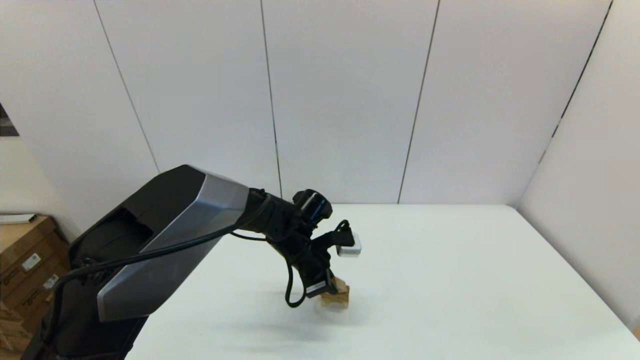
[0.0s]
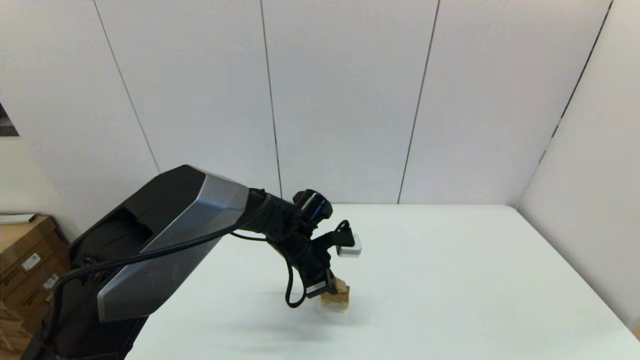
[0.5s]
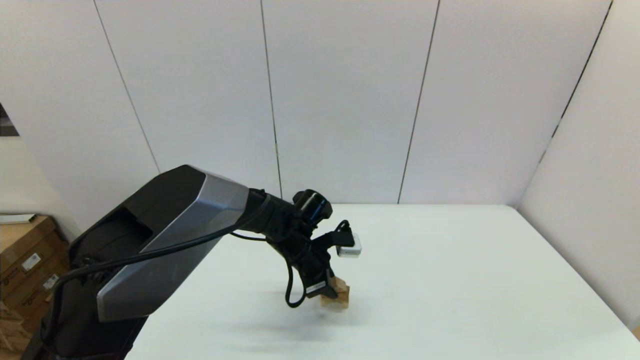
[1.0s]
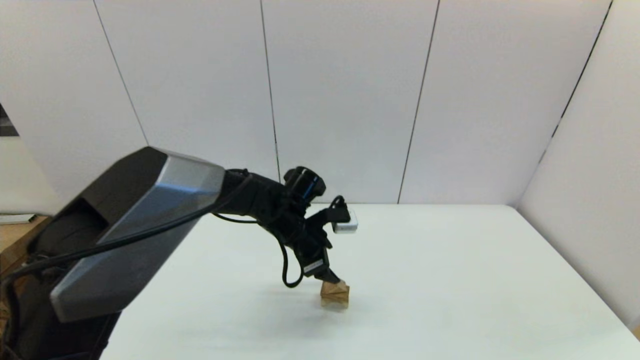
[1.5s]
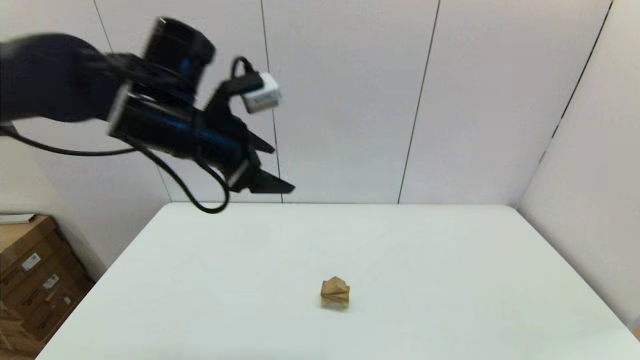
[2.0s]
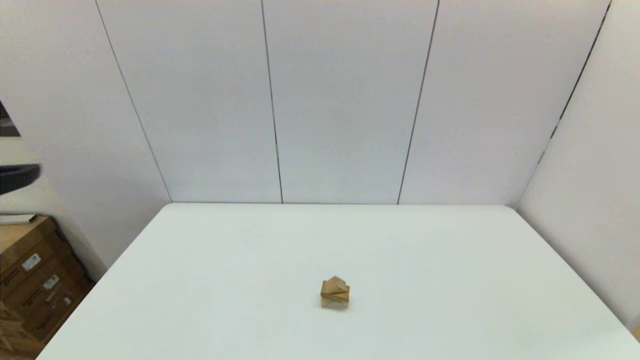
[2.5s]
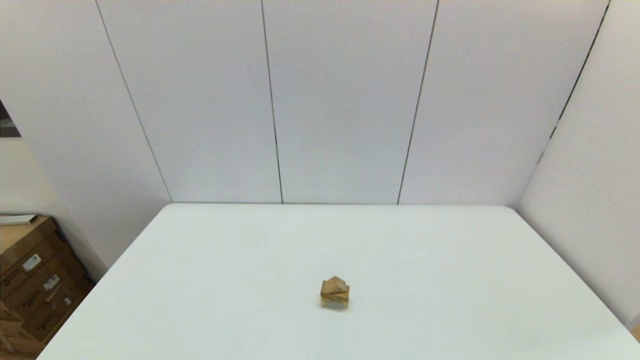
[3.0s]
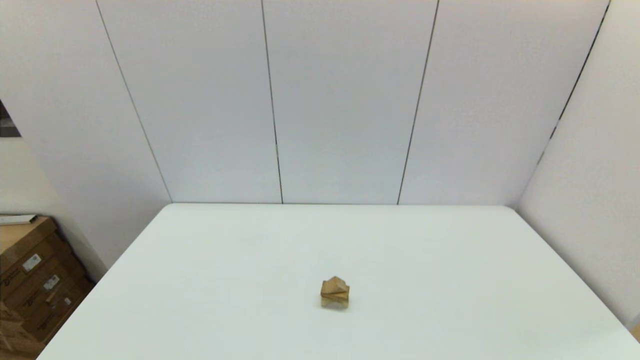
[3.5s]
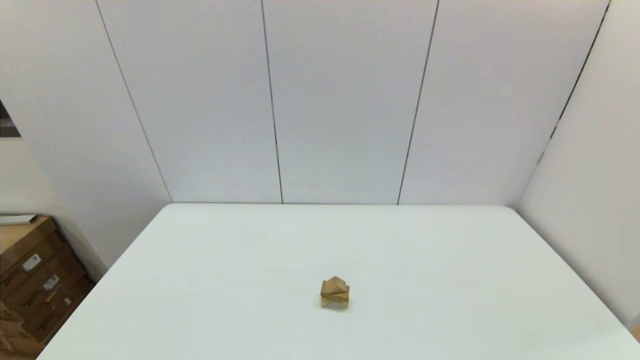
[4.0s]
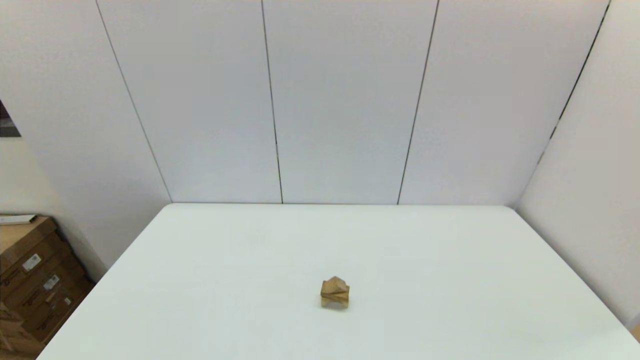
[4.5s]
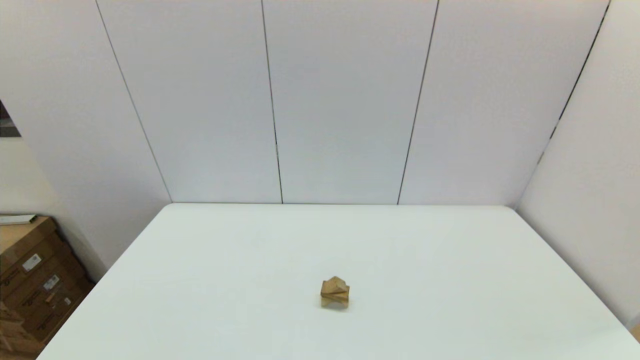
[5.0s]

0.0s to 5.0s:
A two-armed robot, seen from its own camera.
Task of the whole recording: place the arched building blocks in the center of the table, set up the rectangular building blocks, and then set up the triangular building blocks.
0.0s to 2.5s: The left gripper moves upward, backward and to the left, some 50 cm, and opens up.

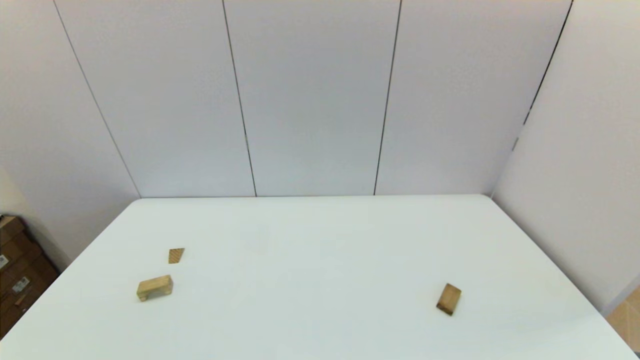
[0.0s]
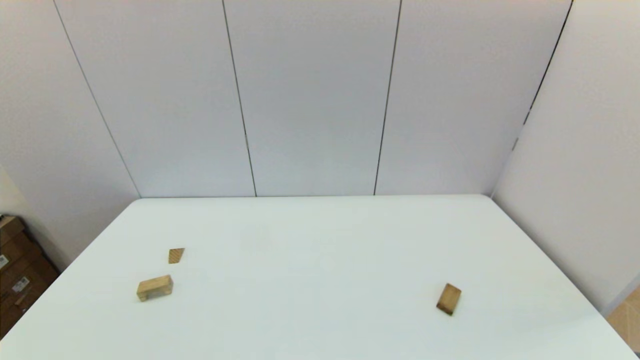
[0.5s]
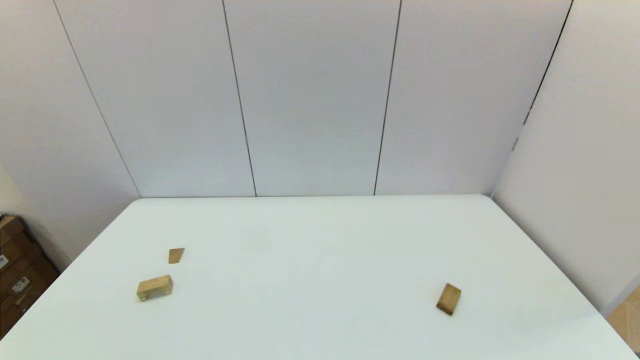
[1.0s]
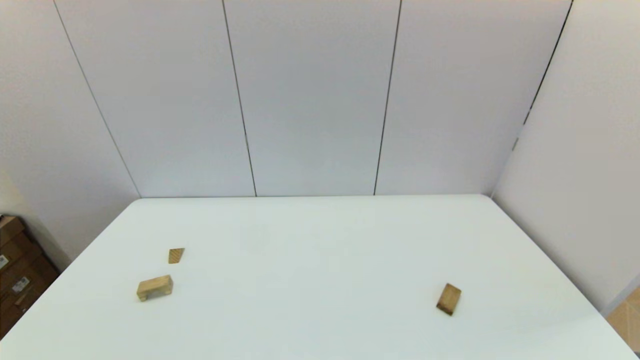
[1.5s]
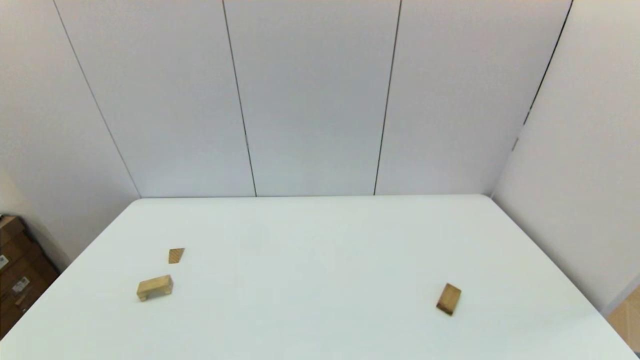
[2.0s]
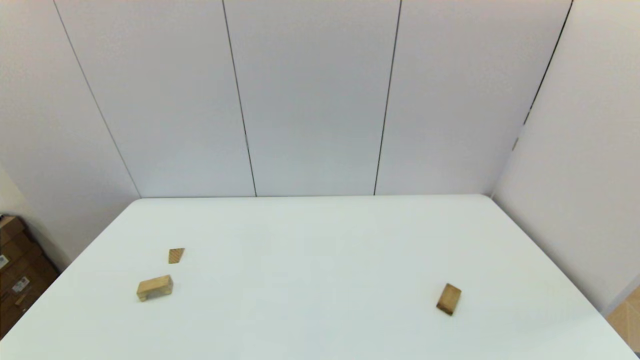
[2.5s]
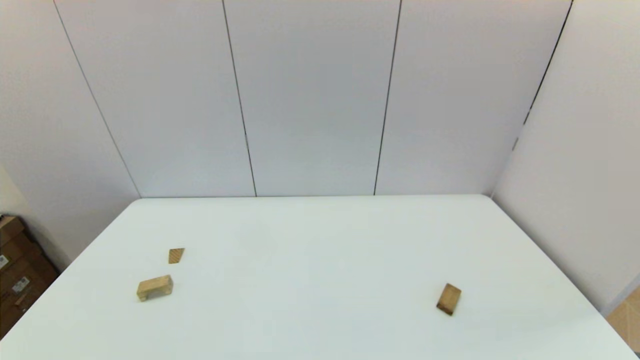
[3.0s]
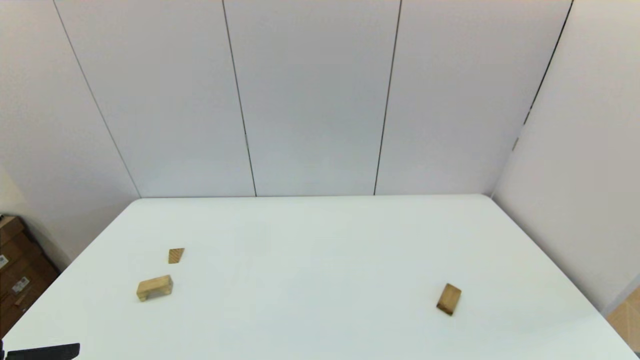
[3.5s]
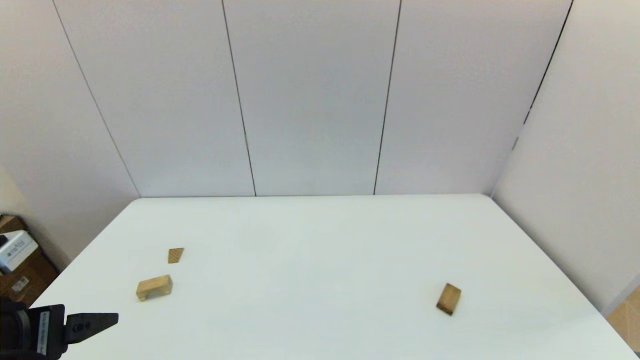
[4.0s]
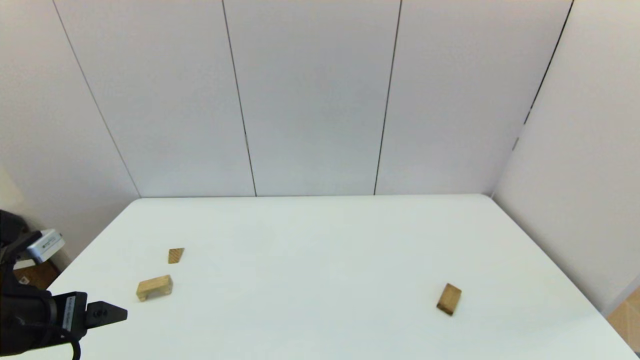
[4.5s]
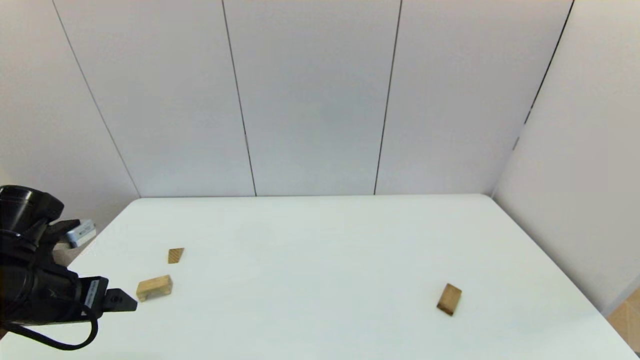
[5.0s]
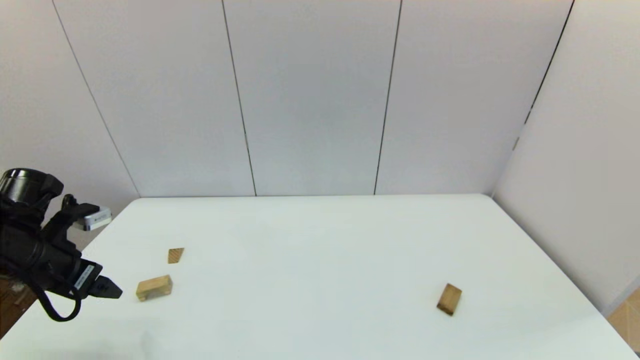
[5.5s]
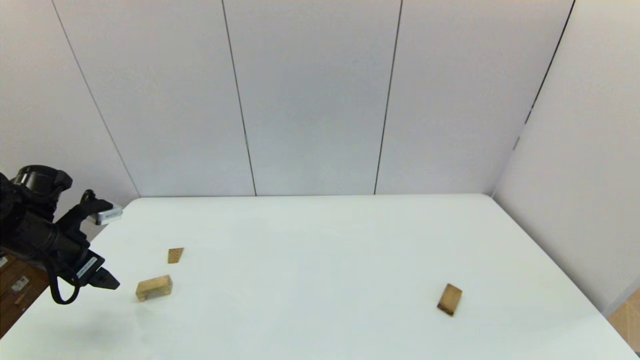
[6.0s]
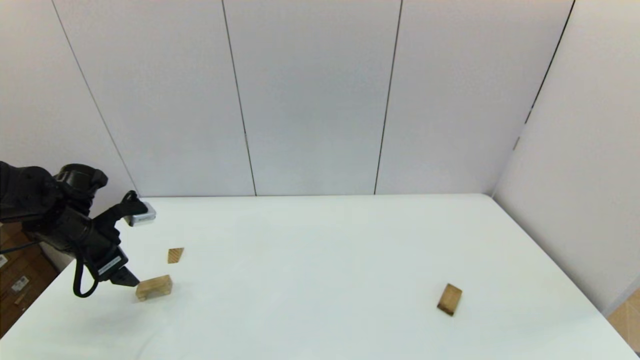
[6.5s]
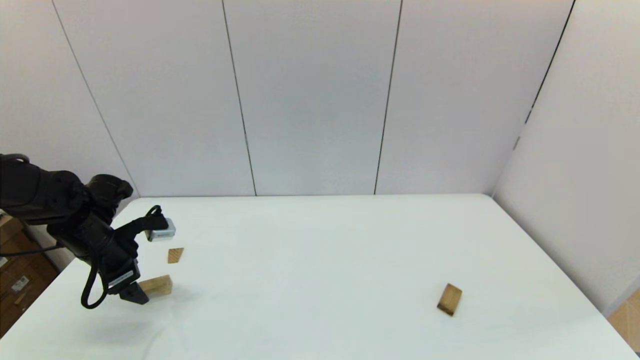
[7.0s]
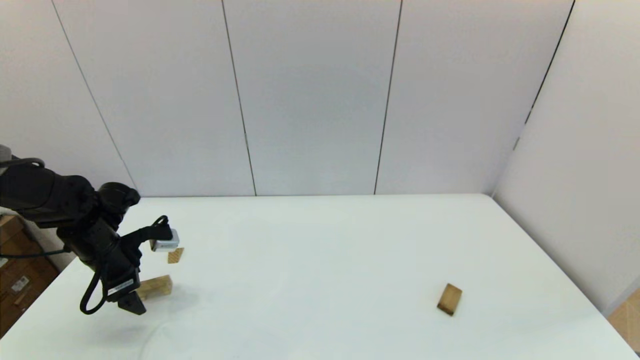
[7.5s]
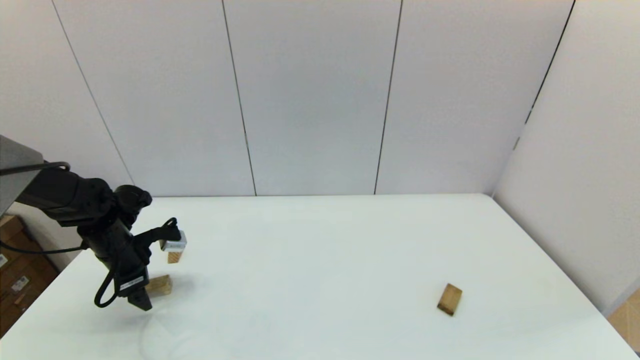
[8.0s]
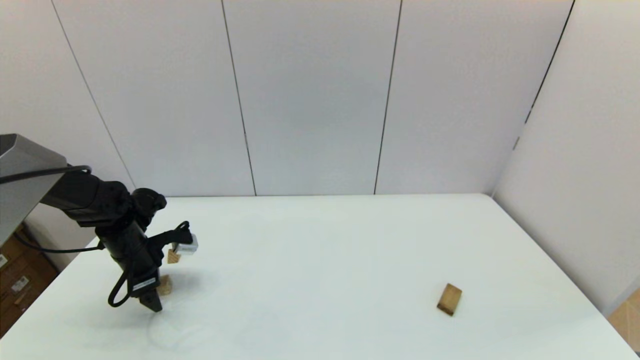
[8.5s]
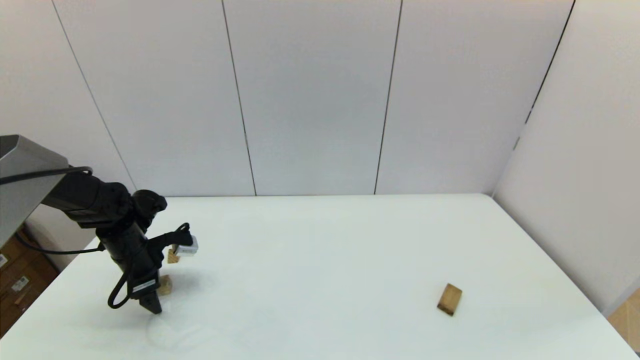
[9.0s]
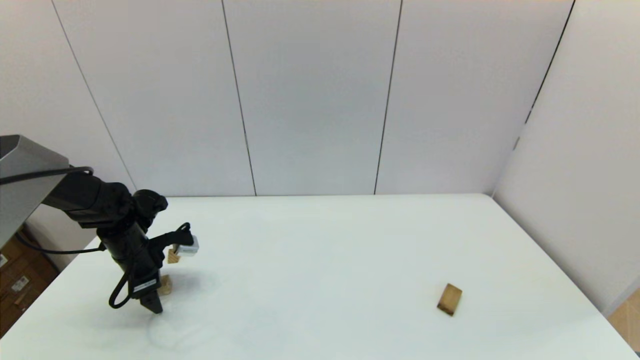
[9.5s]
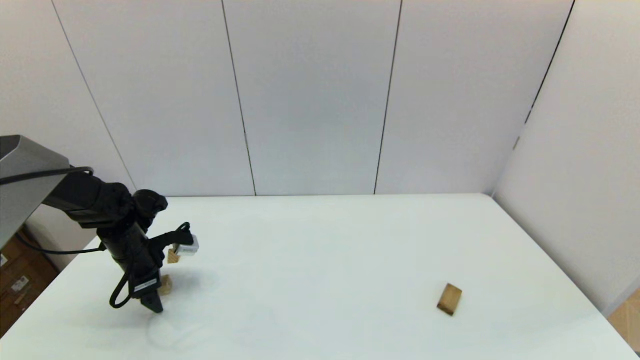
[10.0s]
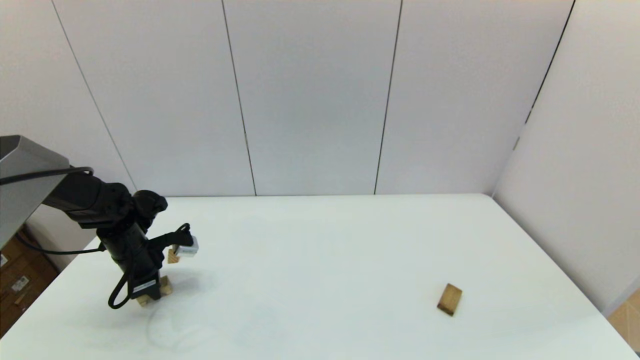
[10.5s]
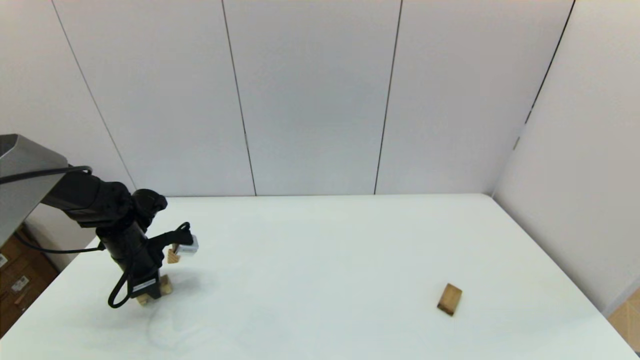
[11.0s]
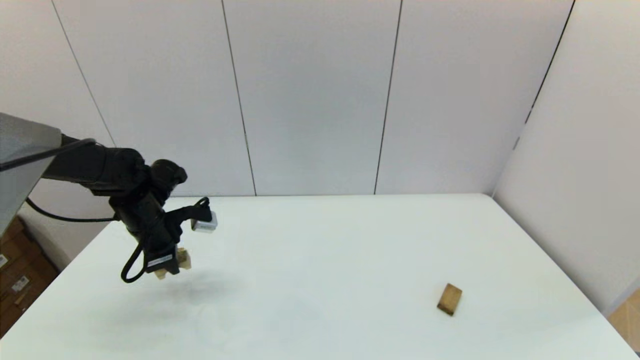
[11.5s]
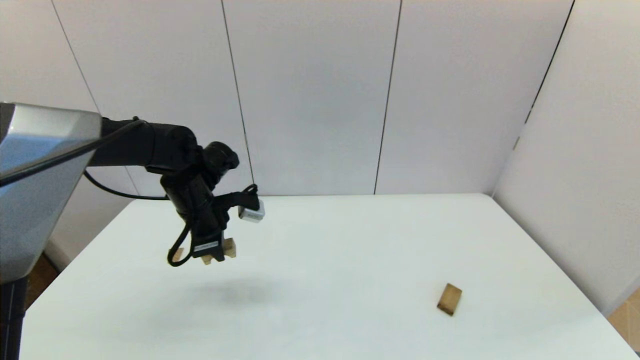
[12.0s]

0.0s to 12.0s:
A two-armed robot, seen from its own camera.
Task of the whole recording: place the arched building blocks in the center of the table, set up the rectangular building blocks, and then set up the triangular building blocks.
Step, 3.5s to 10.5s: Grasp the arch-shaped block with the left gripper.
2.0s to 4.0s: The left gripper goes approximately 15 cm forward and upward.
4.0s to 6.0s: The left gripper heads forward and to the left, covering about 20 cm.
6.0s to 8.0s: The left gripper travels downward and forward by roughly 10 cm.
8.0s to 10.0s: There are only small adjustments of the grippers.
10.0s to 12.0s: The left gripper travels to the right and upward by some 15 cm, and closes.

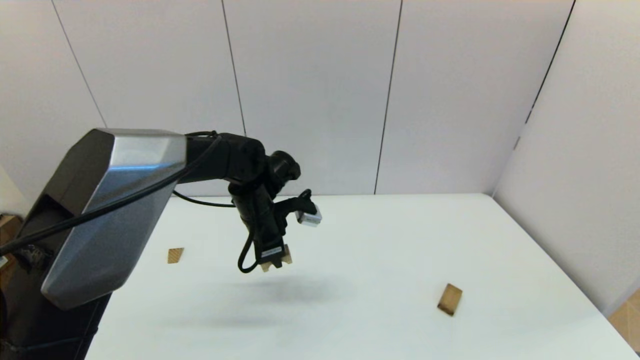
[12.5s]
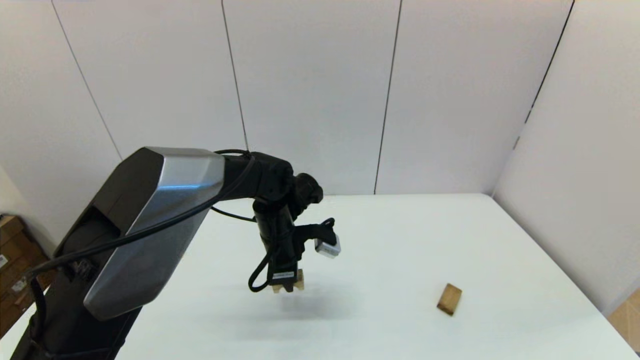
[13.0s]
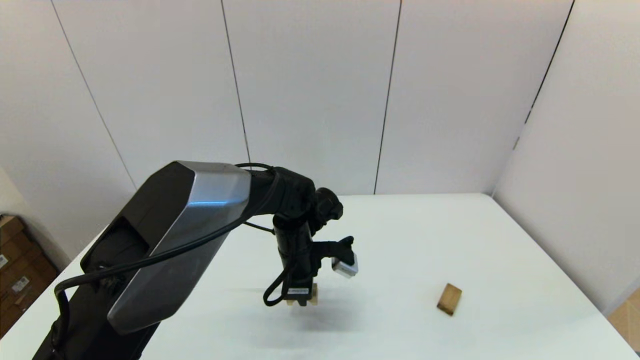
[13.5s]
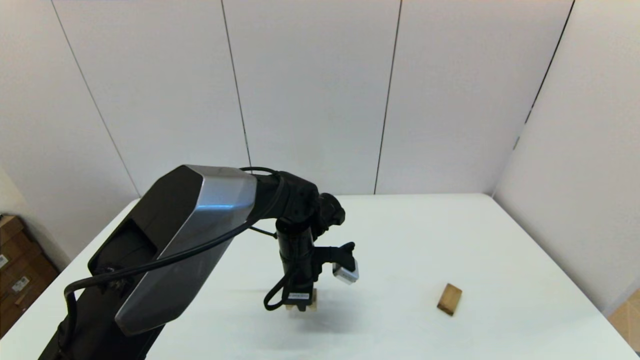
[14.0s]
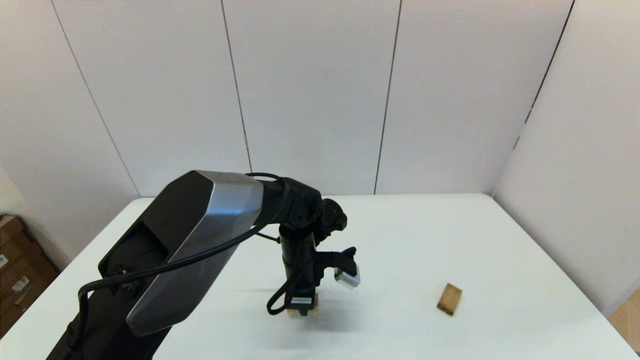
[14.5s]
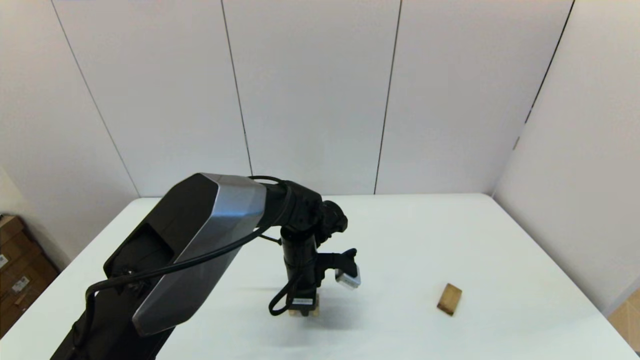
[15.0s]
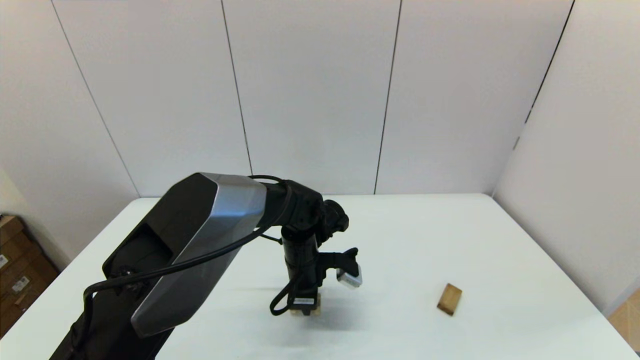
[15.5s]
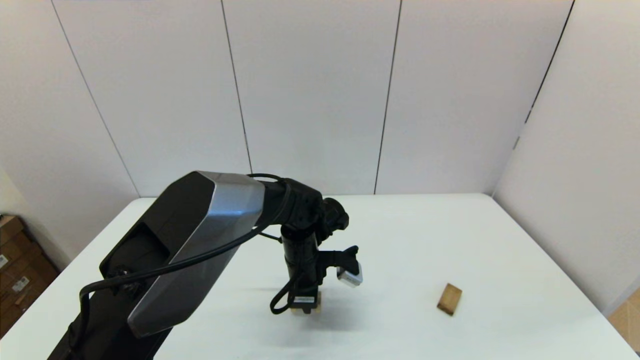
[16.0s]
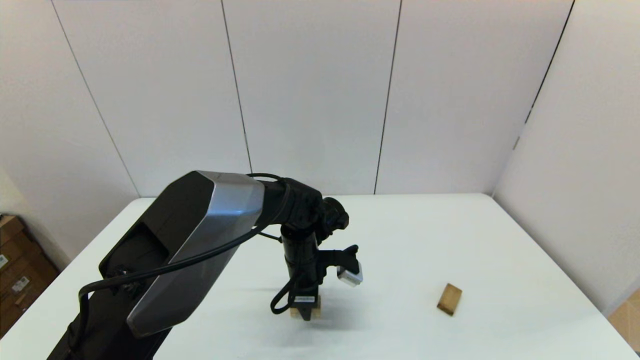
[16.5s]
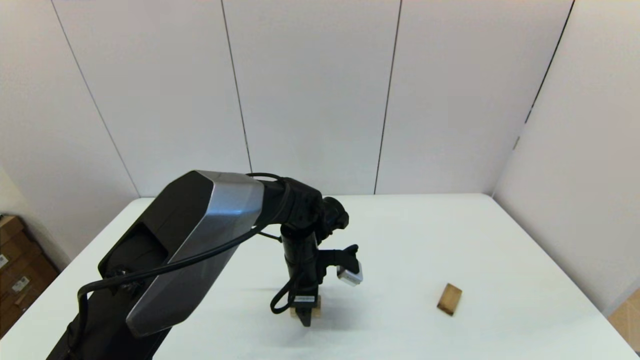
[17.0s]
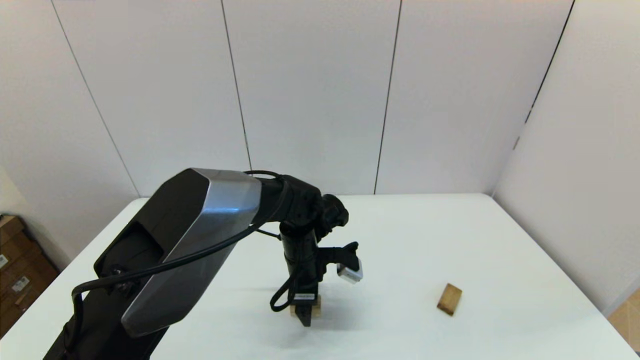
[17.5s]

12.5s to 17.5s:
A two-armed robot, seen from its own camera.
Task of the whole recording: place the arched building blocks in the center of the table, set up the rectangular building blocks, and then set up the triangular building blocks.
Step, 12.5s to 16.5s: Place the arch-shaped block in the center of view with the left gripper.
12.5s to 15.0s: The left gripper travels downward and to the right by roughly 10 cm.
15.0s to 17.5s: The left gripper opens its fingers.
